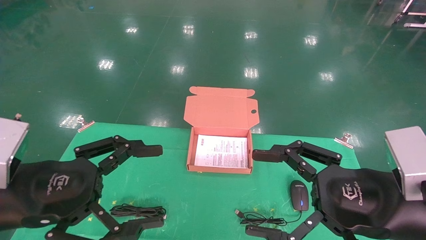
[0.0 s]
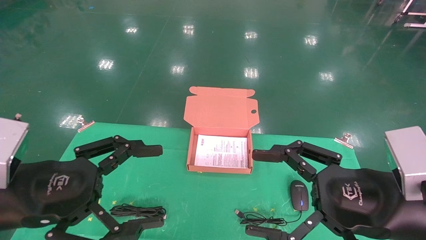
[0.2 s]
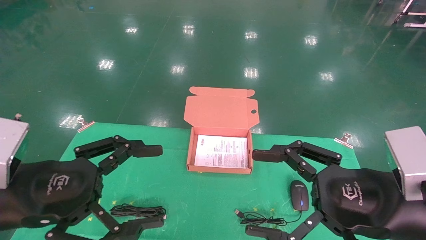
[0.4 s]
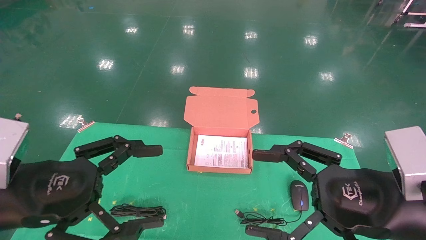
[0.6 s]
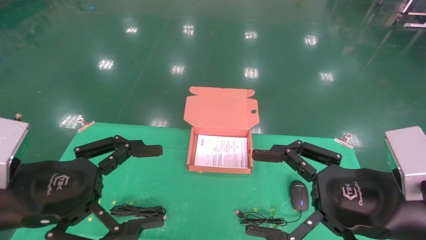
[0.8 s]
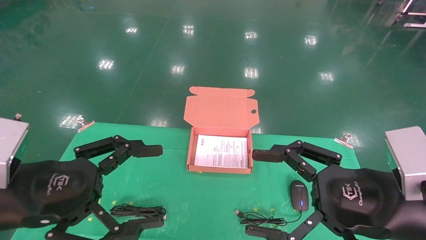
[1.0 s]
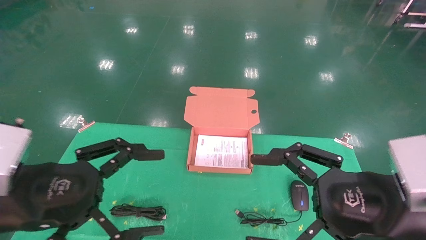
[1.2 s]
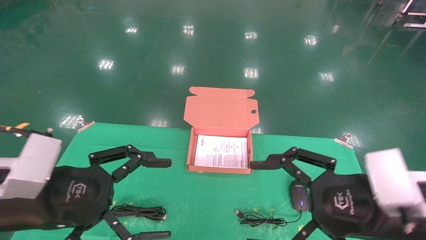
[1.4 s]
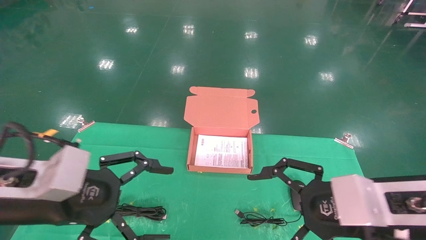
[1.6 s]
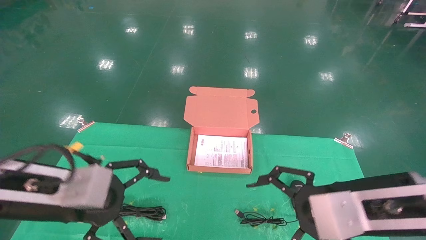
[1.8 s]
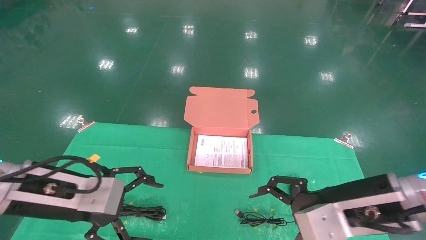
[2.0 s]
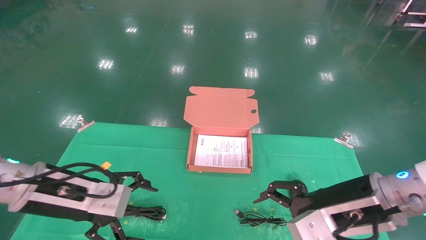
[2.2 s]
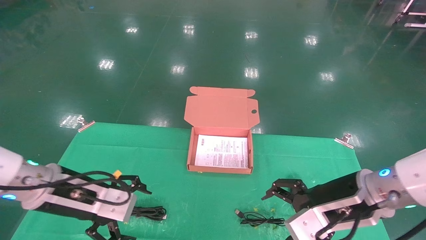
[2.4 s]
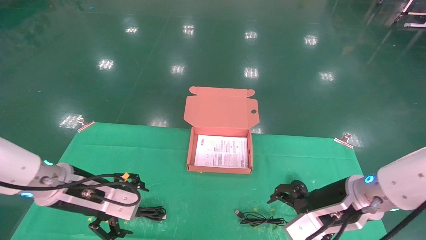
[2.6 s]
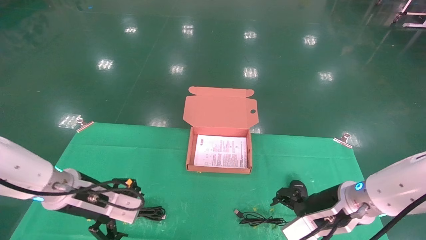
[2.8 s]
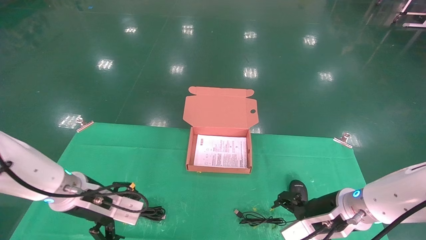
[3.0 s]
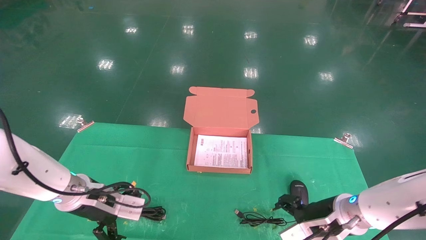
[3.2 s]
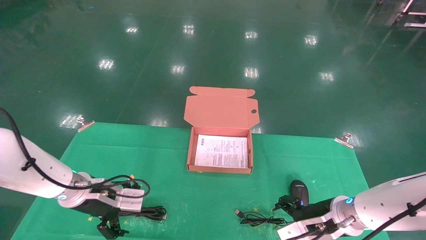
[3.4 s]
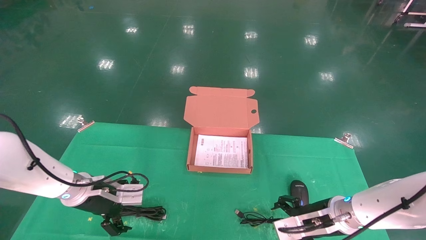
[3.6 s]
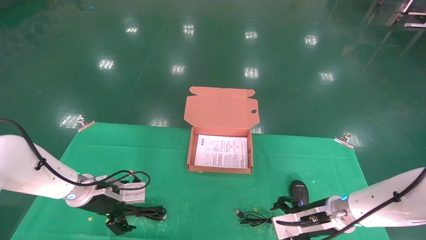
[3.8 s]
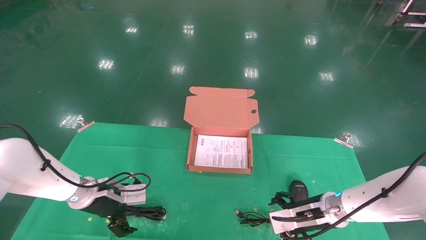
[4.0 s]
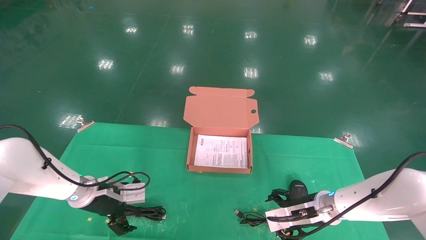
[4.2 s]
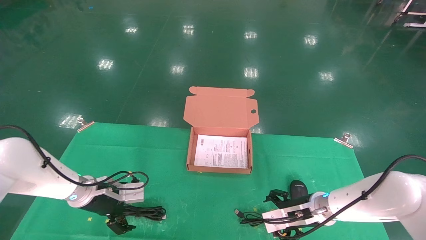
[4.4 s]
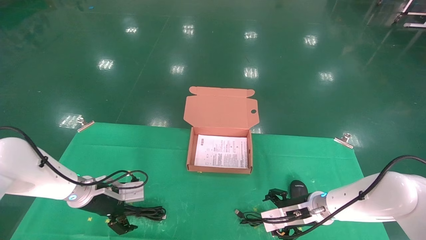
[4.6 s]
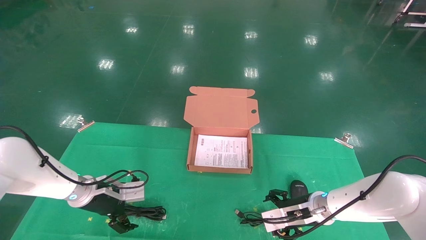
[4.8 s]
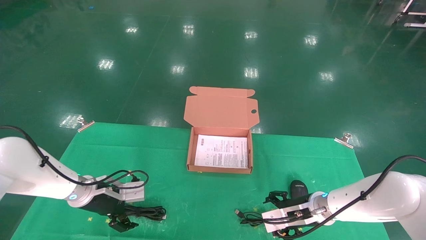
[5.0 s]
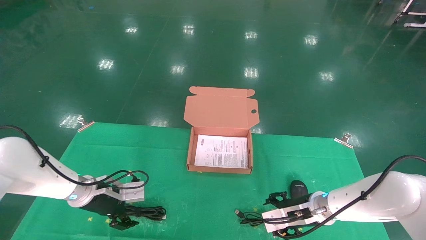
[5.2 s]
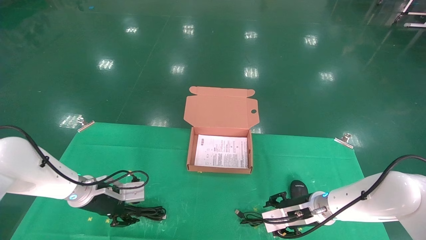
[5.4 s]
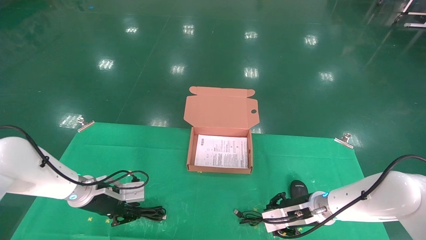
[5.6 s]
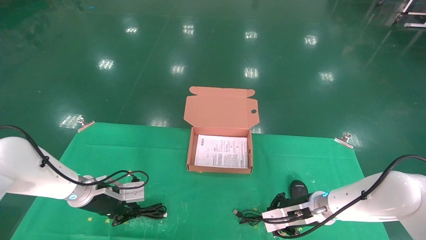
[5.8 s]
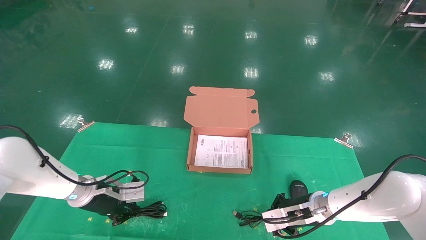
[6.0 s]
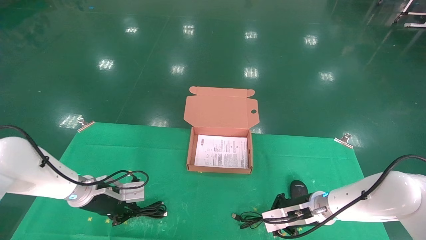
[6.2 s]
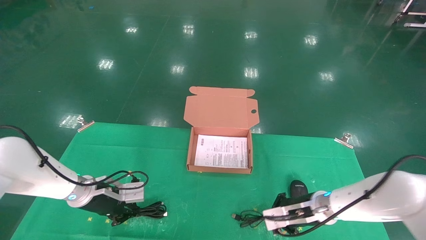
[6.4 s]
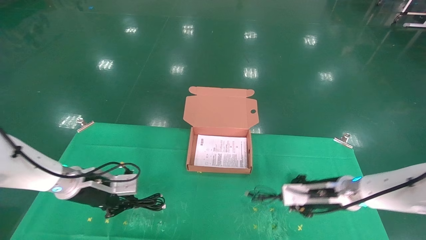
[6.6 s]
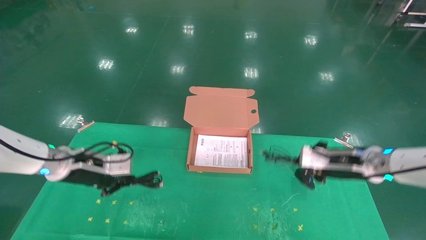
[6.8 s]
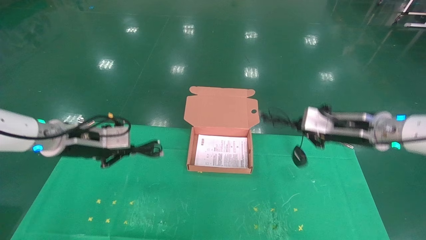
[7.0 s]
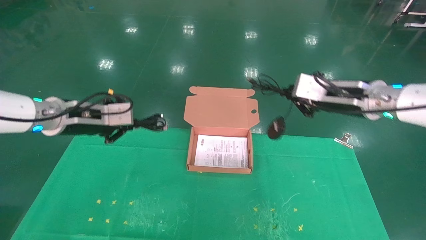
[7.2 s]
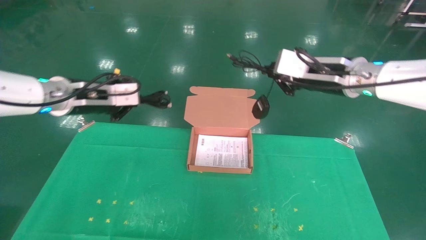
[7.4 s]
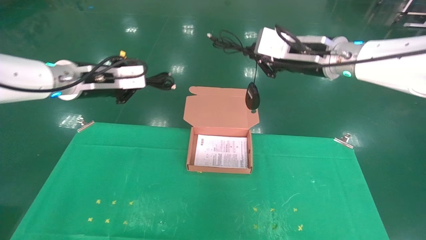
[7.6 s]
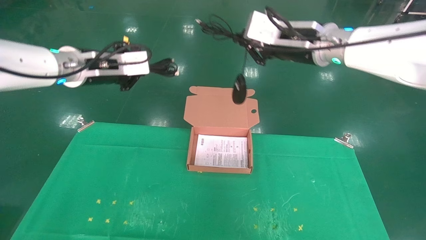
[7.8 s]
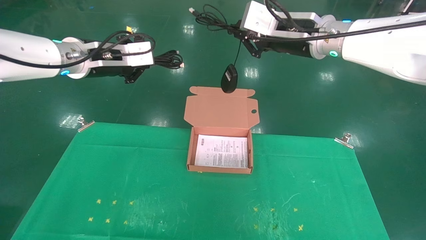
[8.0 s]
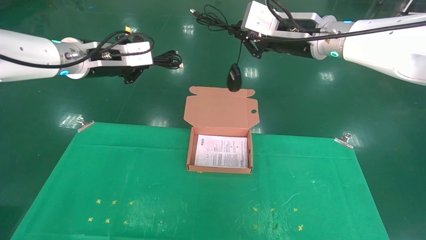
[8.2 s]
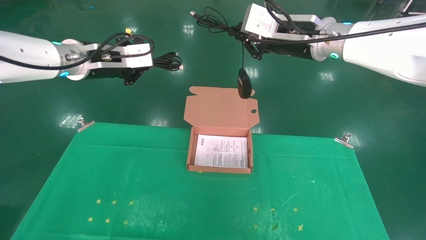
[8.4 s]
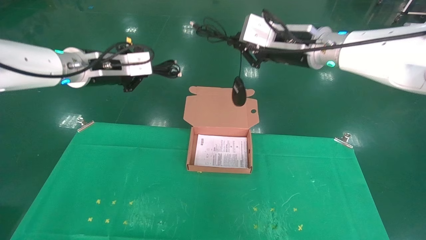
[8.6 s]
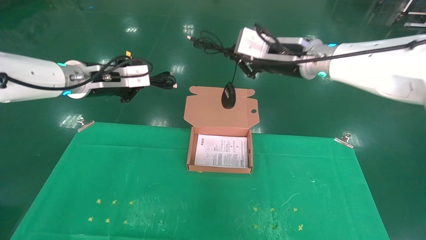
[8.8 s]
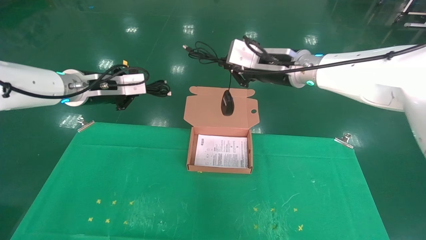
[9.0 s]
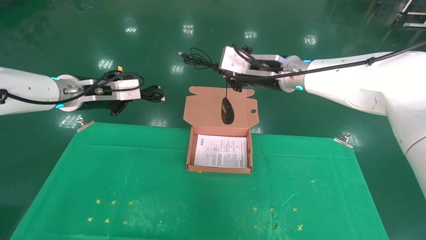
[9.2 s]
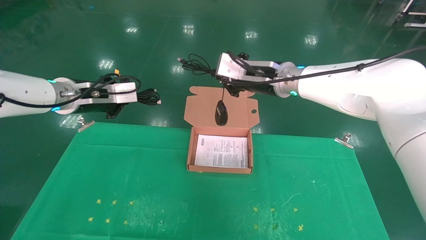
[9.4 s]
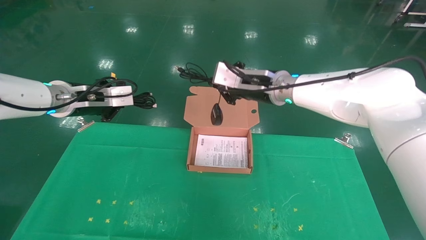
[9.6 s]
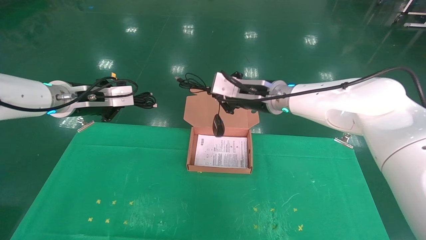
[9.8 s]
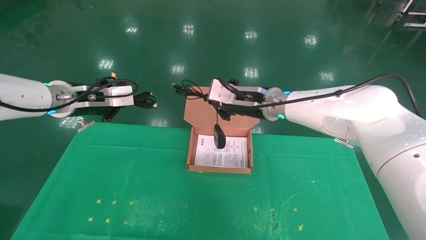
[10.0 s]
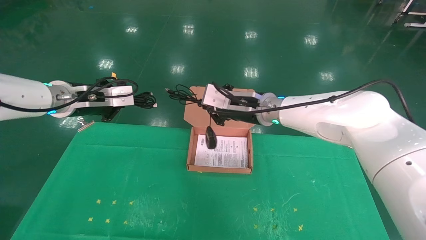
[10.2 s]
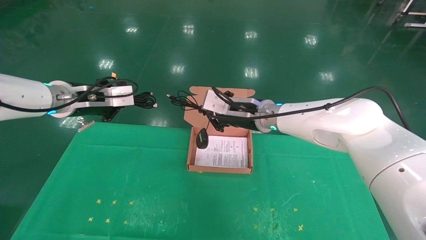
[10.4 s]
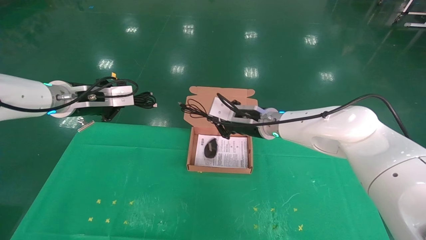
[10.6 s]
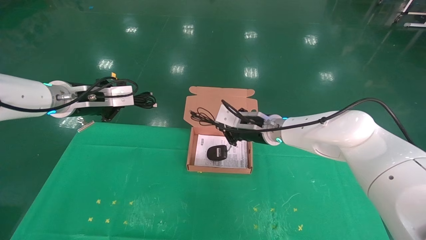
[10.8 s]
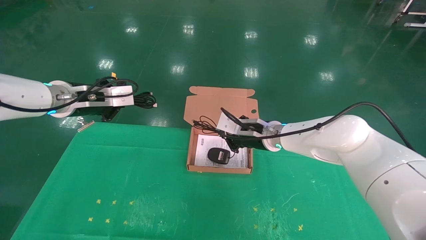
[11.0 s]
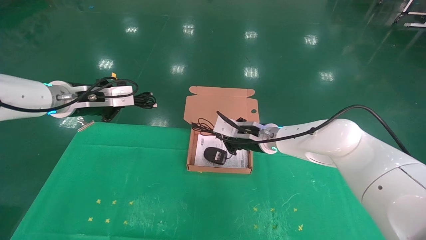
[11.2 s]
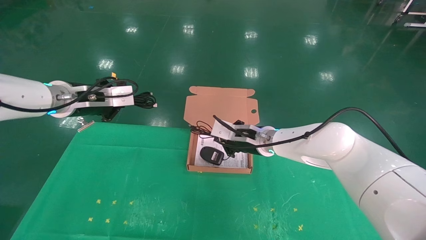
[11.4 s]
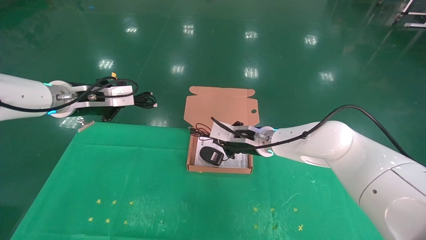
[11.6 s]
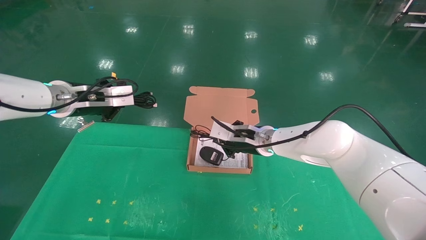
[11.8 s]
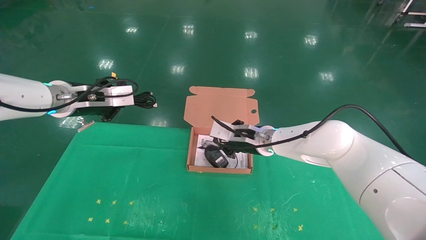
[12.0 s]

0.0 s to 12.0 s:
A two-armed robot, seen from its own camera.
Task of the whole recording: grasp data cable left put into box grasp mouse right put into box.
Step, 1.2 to 6.0 s: Grab and pick up both the mouse and power cord from the accessory packaging area at the same time.
1.6 to 3.0 s: The two grippers go about 15 cm forward and downward.
3.0 to 4.4 s: The two grippers go some 10 cm forward and downward.
4.4 to 6.0 s: The left gripper closes. The right gripper closes.
6.0 to 7.6 s: Both grippers travel together upward, roughly 30 cm.
7.6 to 9.0 s: The right gripper changes place by about 5 cm.
9.0 to 10.4 s: The right gripper heads downward, covering approximately 10 cm.
10.4 to 12.0 s: The right gripper heads downward, covering some 5 cm.

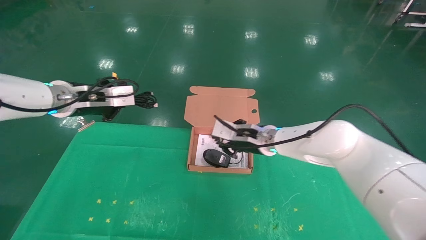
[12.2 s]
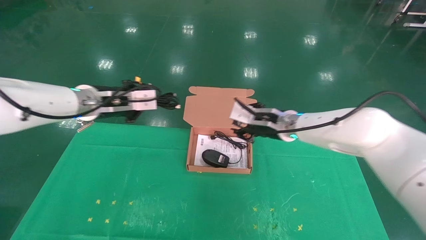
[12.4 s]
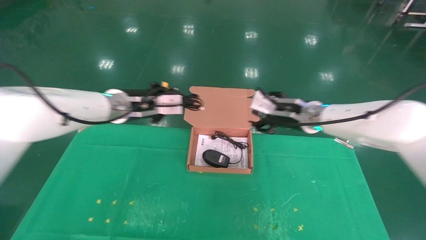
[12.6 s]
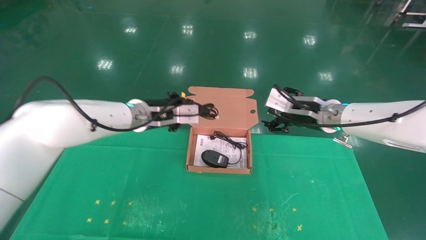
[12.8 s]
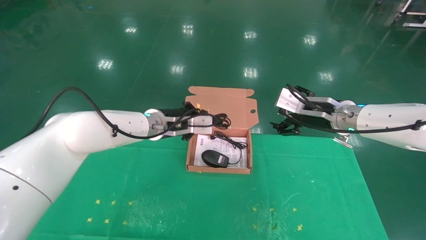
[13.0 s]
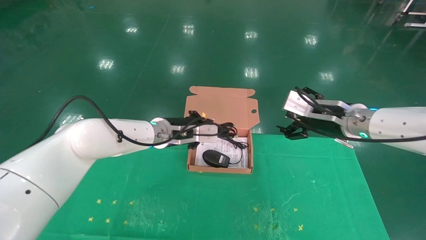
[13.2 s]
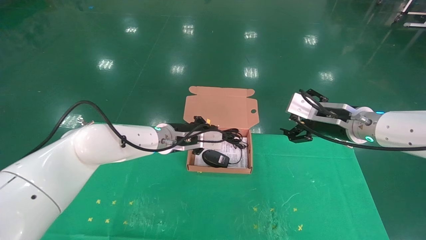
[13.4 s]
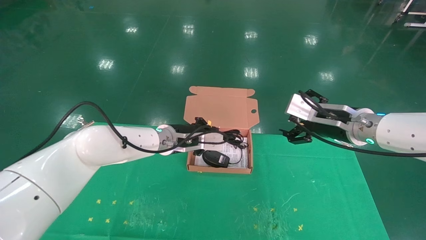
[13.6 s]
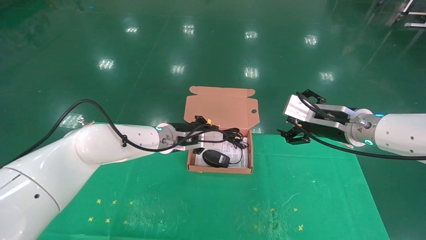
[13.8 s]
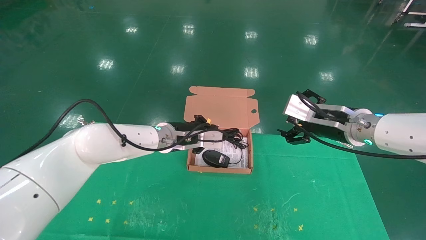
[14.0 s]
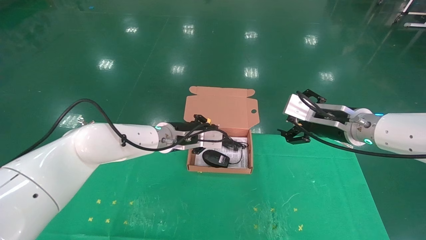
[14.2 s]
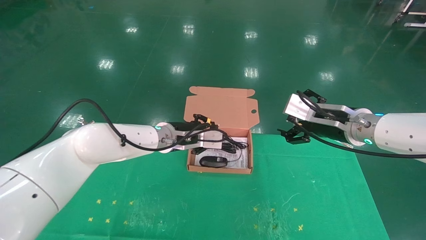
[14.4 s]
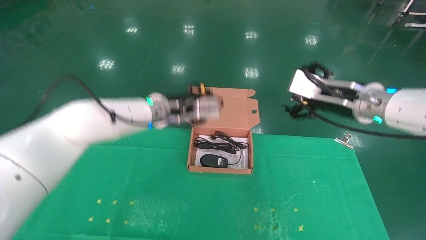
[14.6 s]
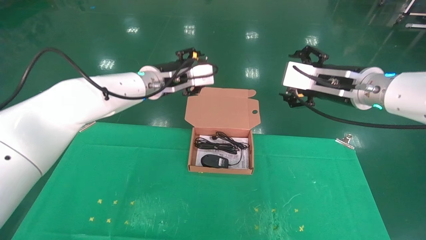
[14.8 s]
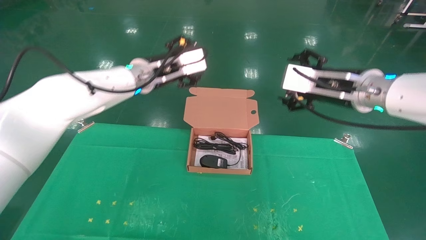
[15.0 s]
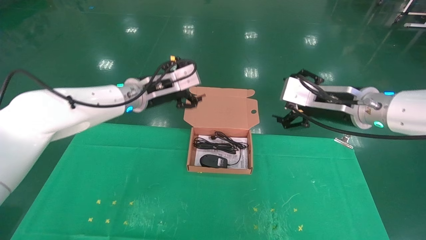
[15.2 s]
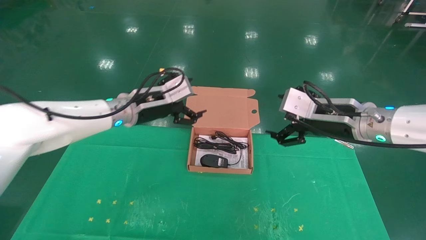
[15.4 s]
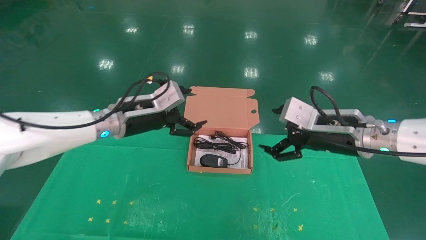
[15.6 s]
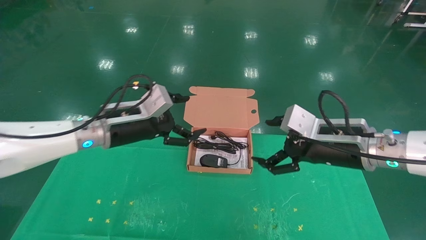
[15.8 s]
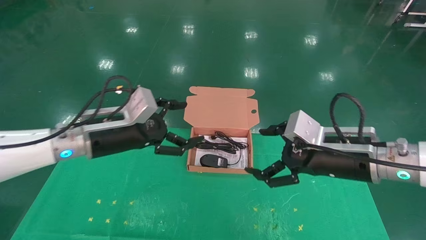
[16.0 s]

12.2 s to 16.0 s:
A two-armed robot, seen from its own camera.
Task of the whole recording: grasp data cable left put into box grasp mouse right put into box.
Step, 12.2 to 14.2 s: Place the mouse and power cord into the box.
12.2 to 13.4 s: The left gripper travels to the right and downward by some 20 cm. The right gripper travels to the right and backward by roughly 15 cm, and opens.
13.4 to 14.8 s: The left gripper is displaced upward by approximately 10 cm, and opens its fingers. Meanwhile the right gripper travels upward by about 5 cm.
14.8 to 16.0 s: The right gripper shifts some 10 cm downward. The left gripper travels backward, to the left and downward by some 10 cm, and opens.

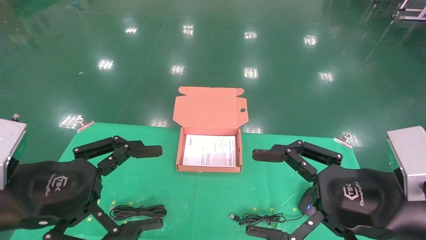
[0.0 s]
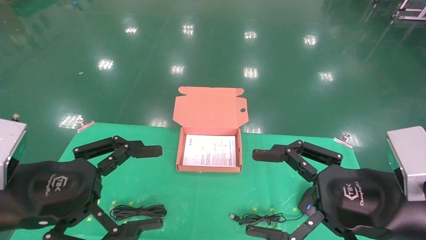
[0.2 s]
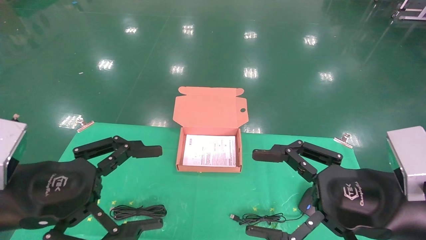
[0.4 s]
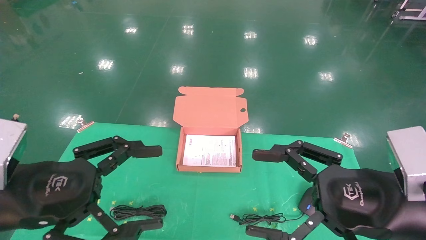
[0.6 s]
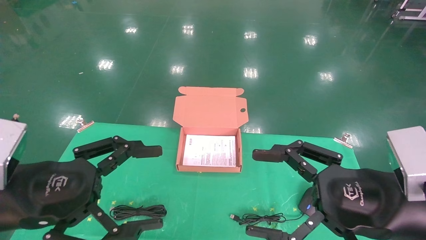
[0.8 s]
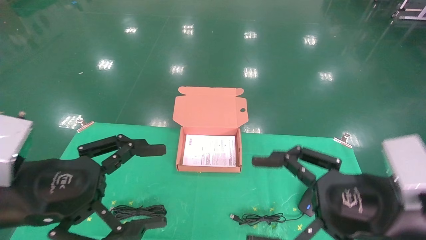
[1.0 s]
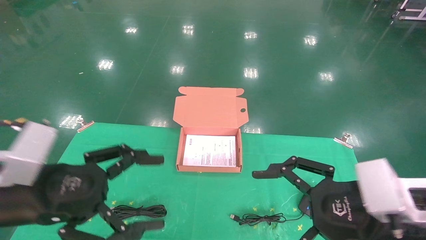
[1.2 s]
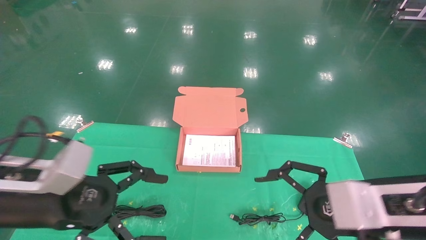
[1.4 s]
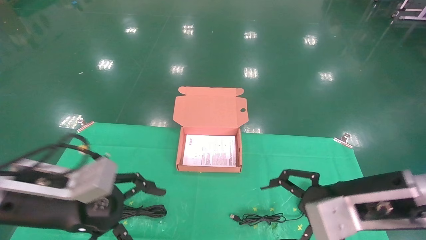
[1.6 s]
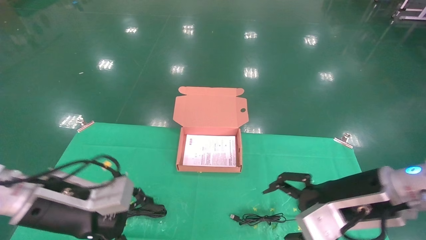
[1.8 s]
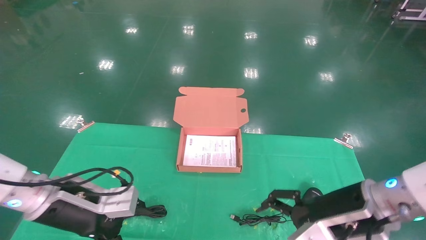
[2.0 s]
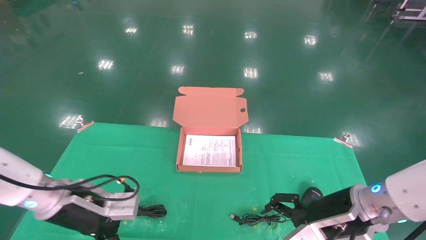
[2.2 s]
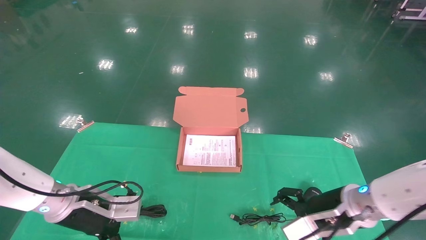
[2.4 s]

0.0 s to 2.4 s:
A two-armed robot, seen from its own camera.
Task of the whole recording: grasp data cable left put into box grasp mouse right put into box.
0.0 to 1.2 s: The grippers move only a little.
1.2 to 2.4 s: Both grippers move forward and downward, some 15 cm.
